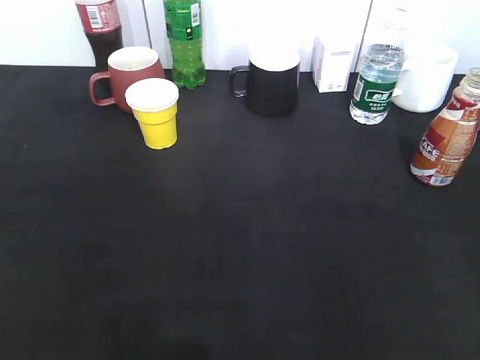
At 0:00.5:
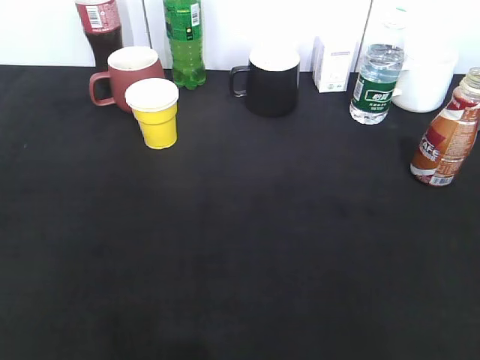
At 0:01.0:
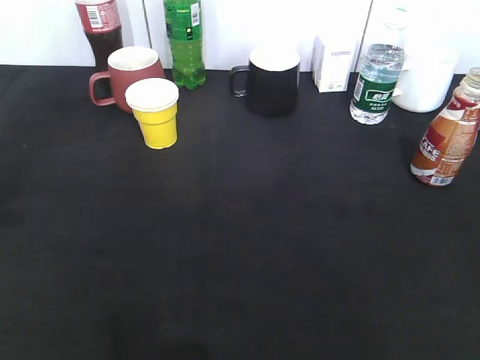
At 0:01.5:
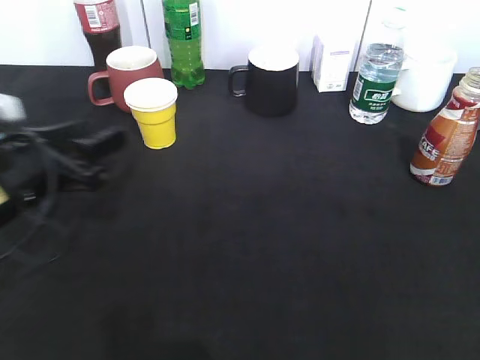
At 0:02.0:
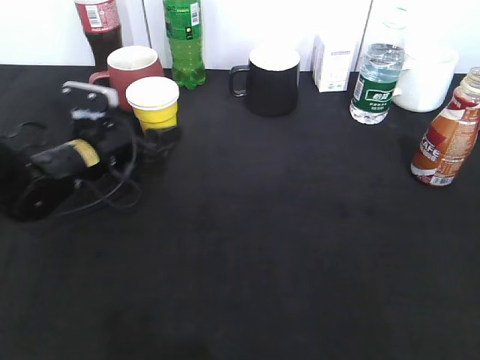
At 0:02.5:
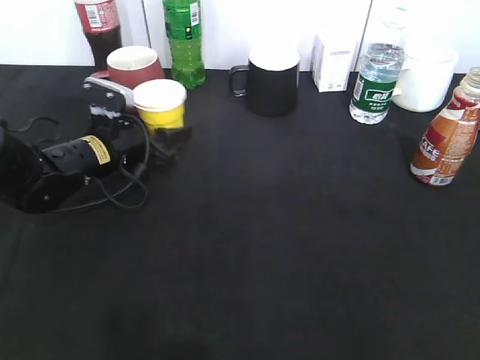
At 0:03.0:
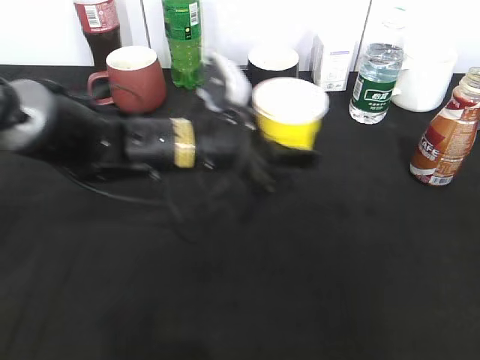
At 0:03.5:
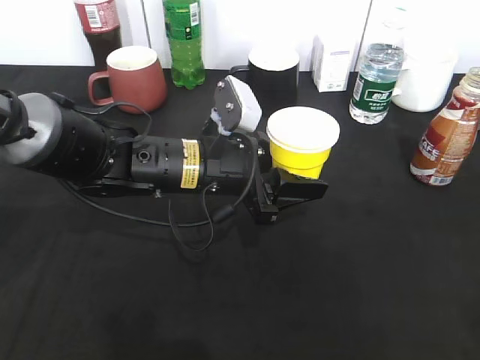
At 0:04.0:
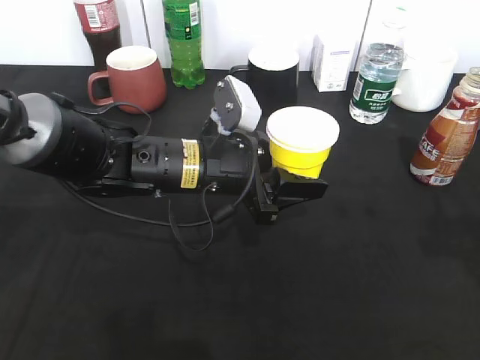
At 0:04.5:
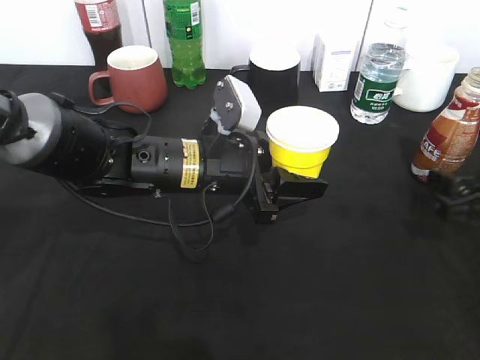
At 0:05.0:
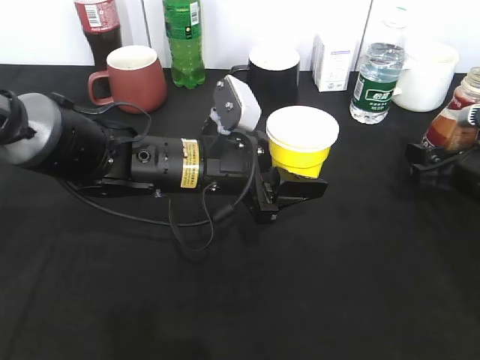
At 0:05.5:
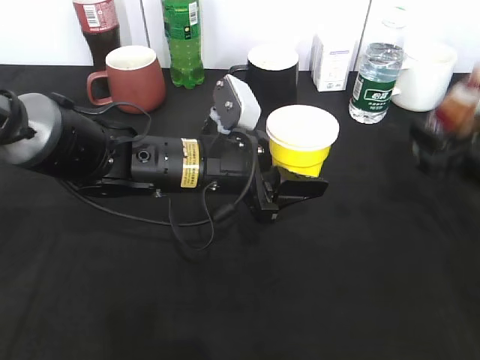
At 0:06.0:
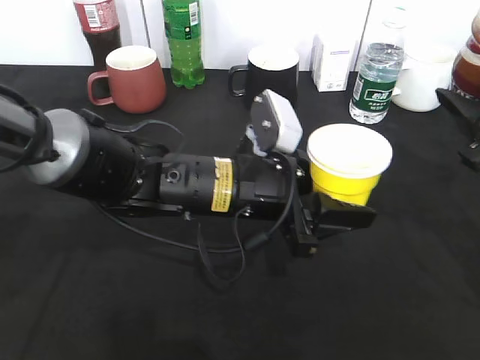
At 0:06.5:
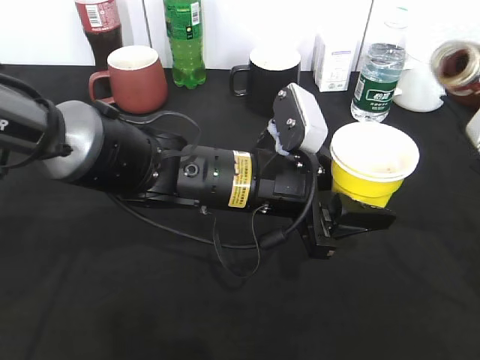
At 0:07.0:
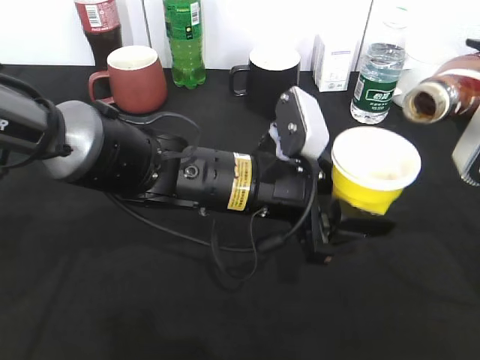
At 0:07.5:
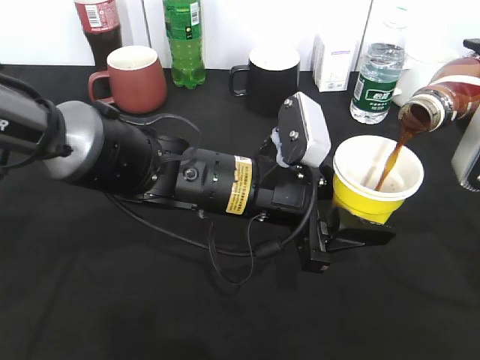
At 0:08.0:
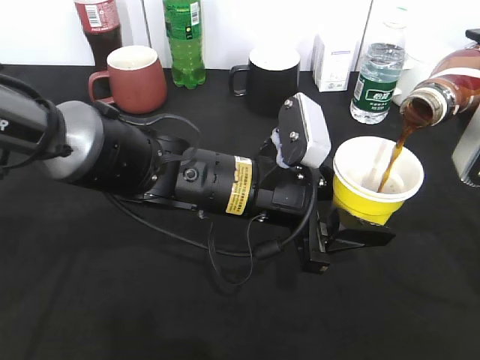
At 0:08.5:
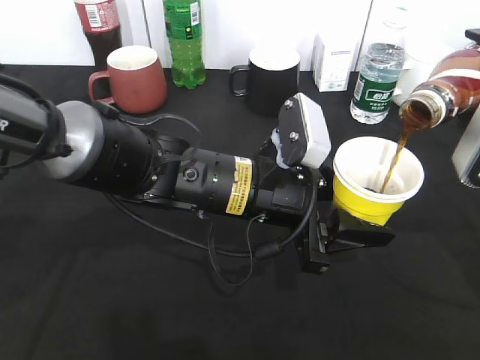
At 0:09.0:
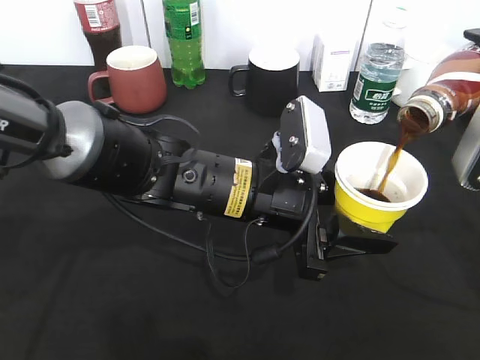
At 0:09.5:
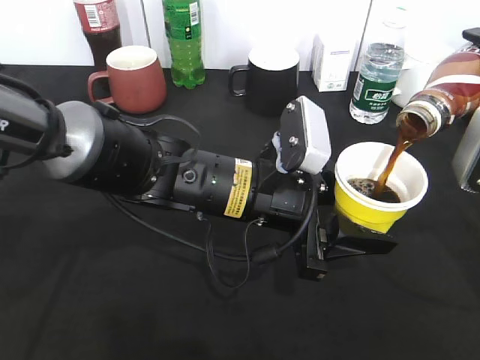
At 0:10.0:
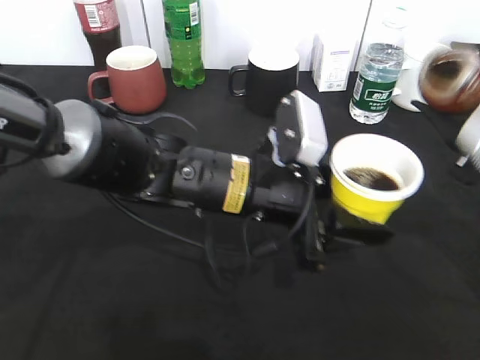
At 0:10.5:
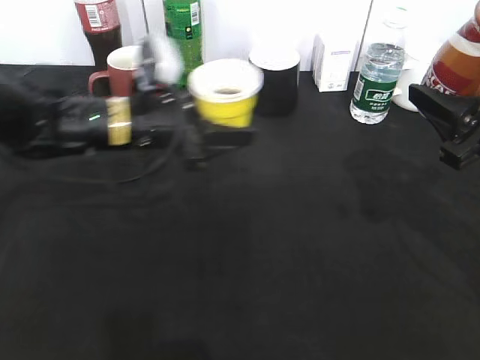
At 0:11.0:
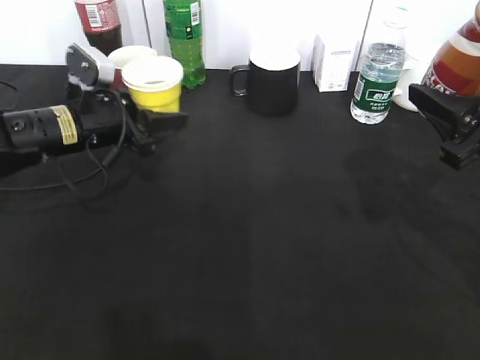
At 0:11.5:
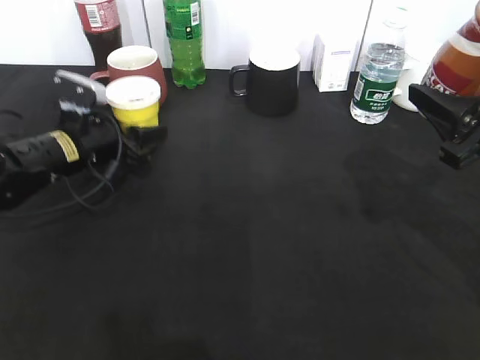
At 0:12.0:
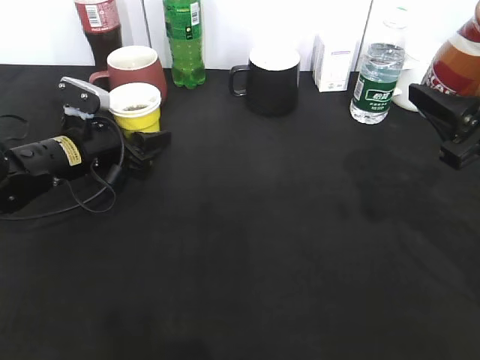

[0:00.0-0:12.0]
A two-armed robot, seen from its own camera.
Step, 0:01.5 to 0:02.0: Grasp the yellow paper cup with left gripper.
Step, 0:02.5 to 0:04.0: Lift the yellow paper cup with left gripper.
Step, 0:04.5 to 0:05.0: Grasp the bottle with coffee with right gripper.
Step, 0:05.5 to 0:09.5: Pour the coffee from bottle to cup with right gripper.
0:00.0 to 0:02.0: The left gripper moves forward and downward, roughly 40 cm, and opens its fingers.
0:02.0 to 0:04.0: The right gripper goes approximately 15 cm forward, and closes up. The left gripper goes approximately 15 cm to the right and backward, and closes its fingers.
0:04.0 to 0:06.0: The right gripper moves forward, some 10 cm, and opens, then closes again. The left gripper ends up roughly 5 cm from where it was.
0:10.0 to 0:12.0: The left gripper heads to the left and forward, covering about 25 cm.

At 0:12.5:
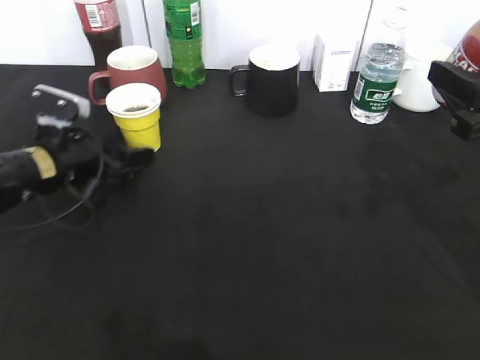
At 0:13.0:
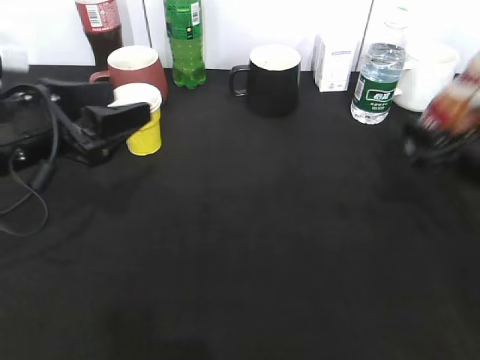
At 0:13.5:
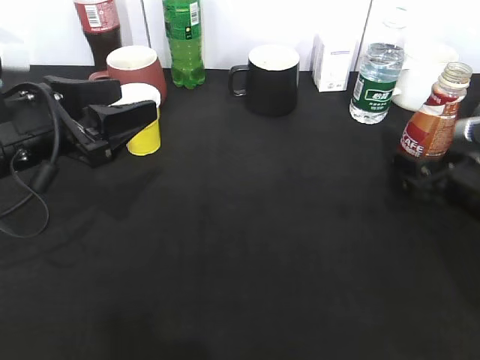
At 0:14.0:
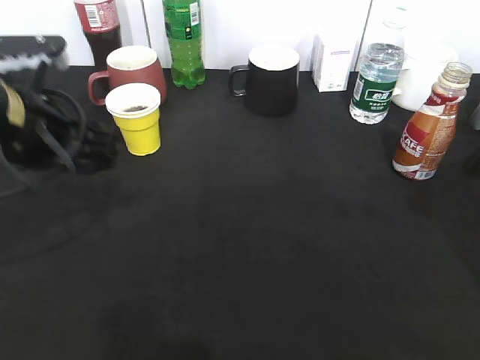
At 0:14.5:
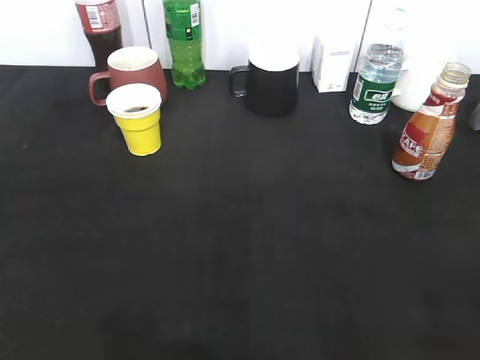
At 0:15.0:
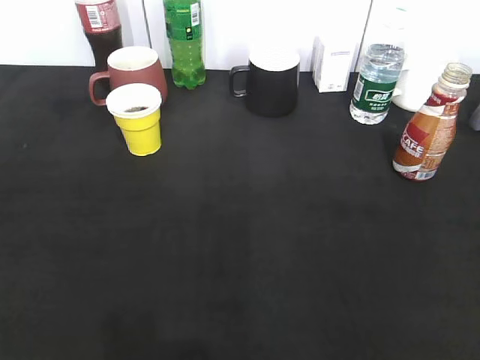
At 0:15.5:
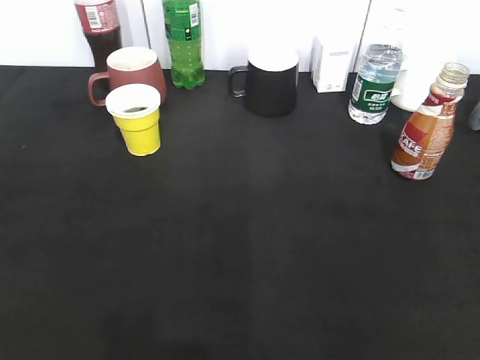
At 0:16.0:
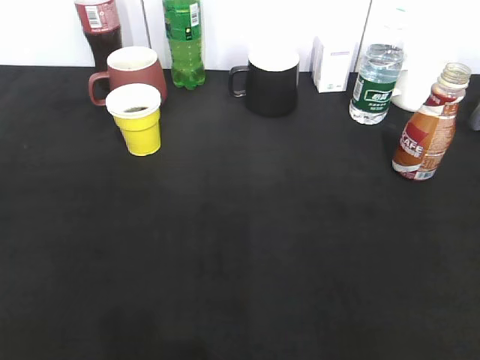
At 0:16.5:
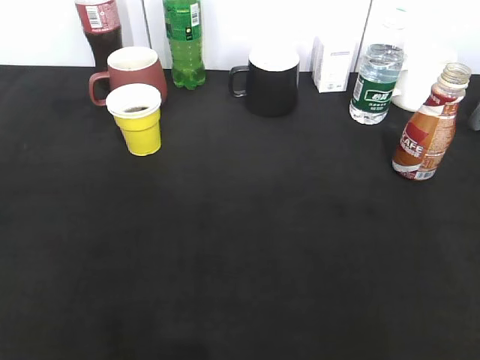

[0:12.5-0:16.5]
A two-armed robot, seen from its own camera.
Step, 0:12.5 to 0:13.5: Place the coffee bottle on the table with right gripper.
0:12.5 to 0:14.5: The left gripper shifts about 35 cm backward and upward, and closes. Meanwhile the right gripper heads backward and upward, covering some 20 cm, and opens its fingers.

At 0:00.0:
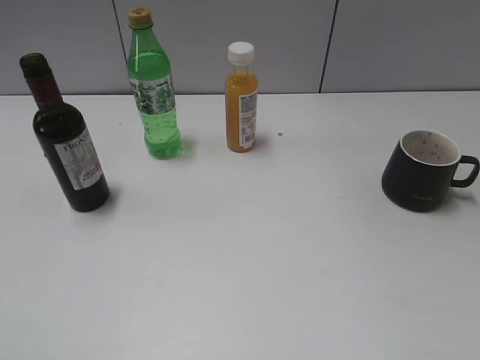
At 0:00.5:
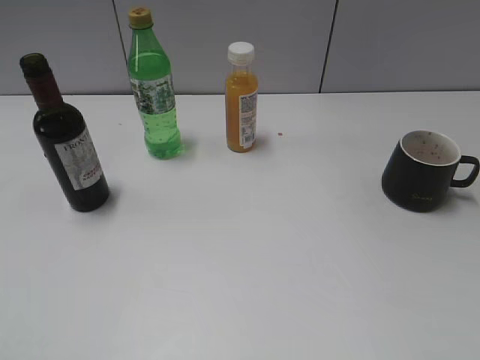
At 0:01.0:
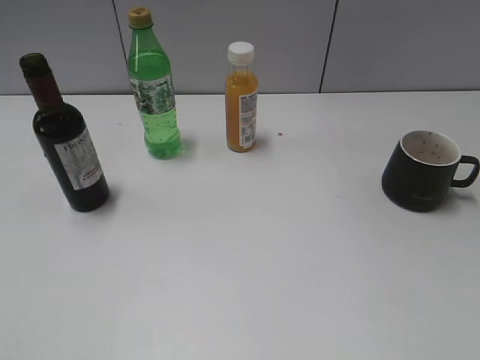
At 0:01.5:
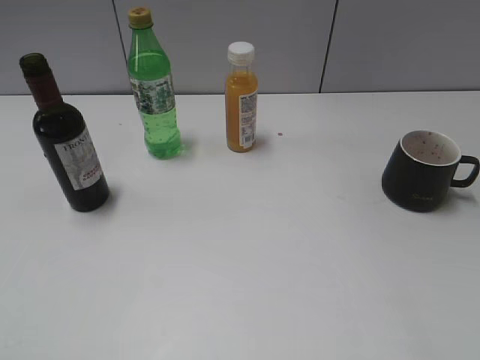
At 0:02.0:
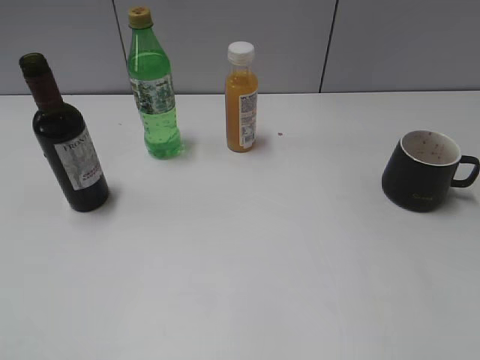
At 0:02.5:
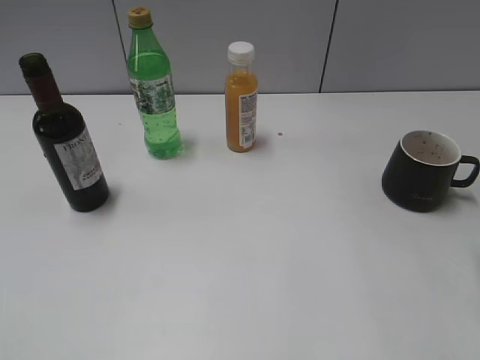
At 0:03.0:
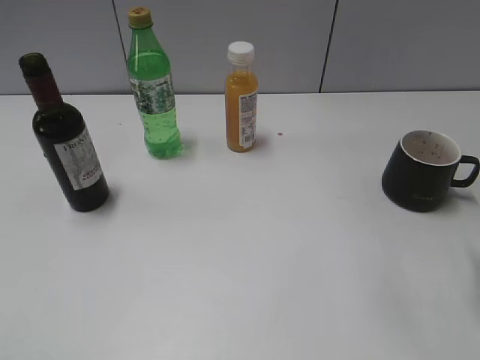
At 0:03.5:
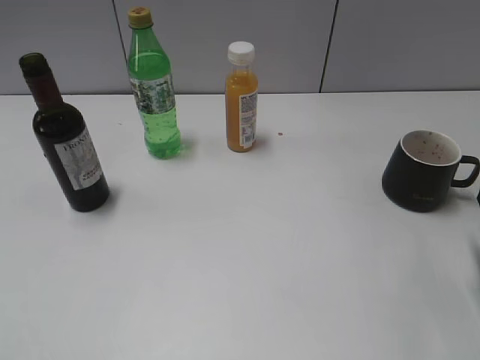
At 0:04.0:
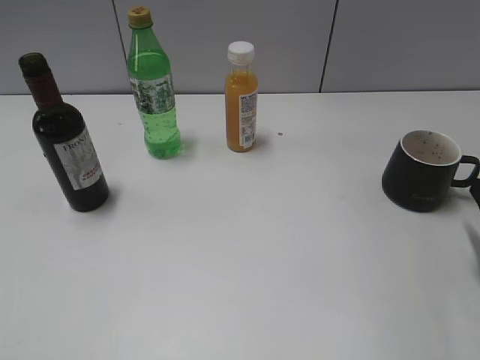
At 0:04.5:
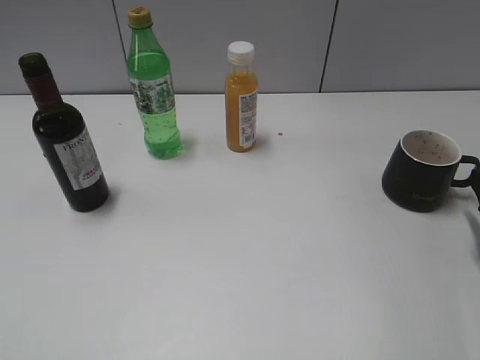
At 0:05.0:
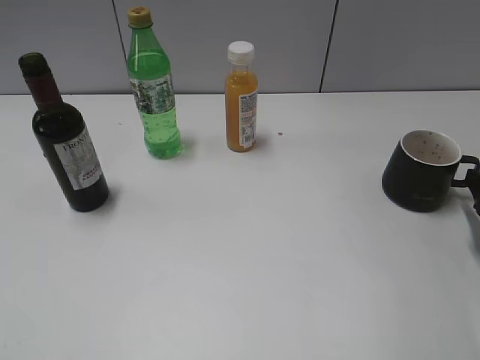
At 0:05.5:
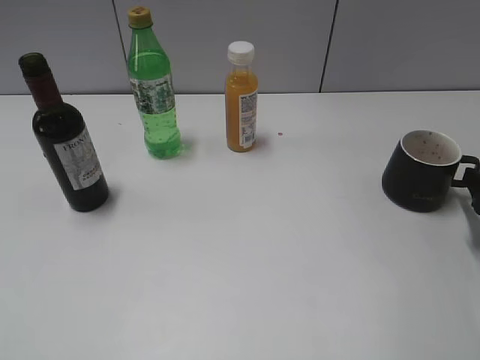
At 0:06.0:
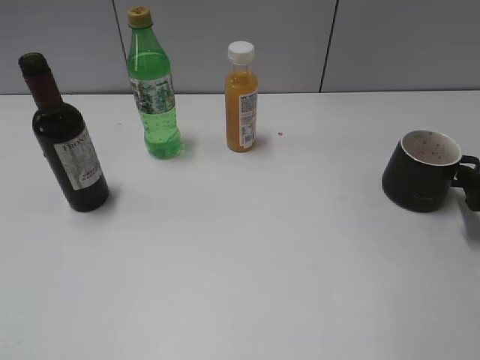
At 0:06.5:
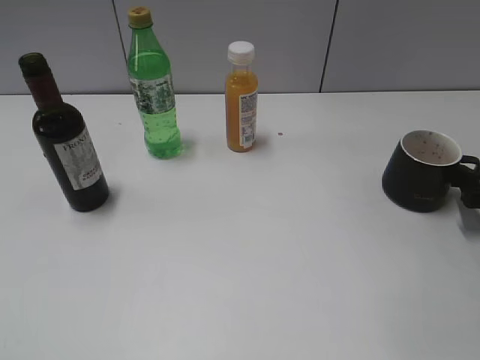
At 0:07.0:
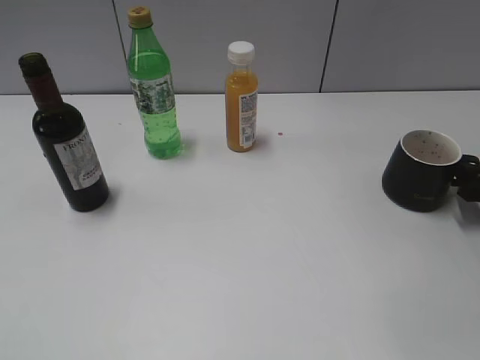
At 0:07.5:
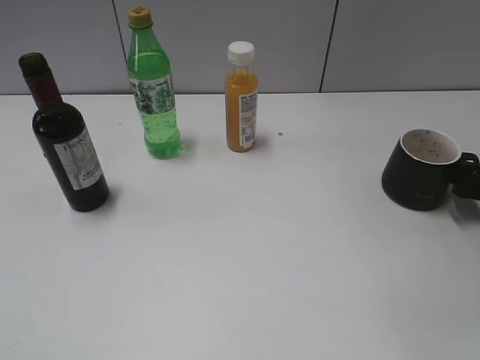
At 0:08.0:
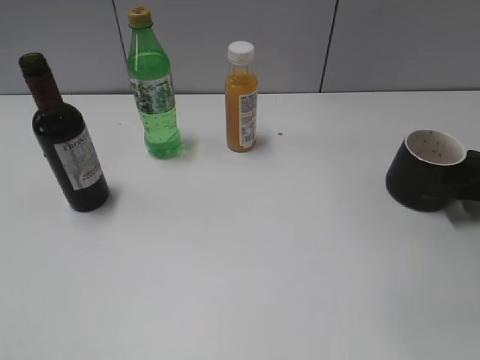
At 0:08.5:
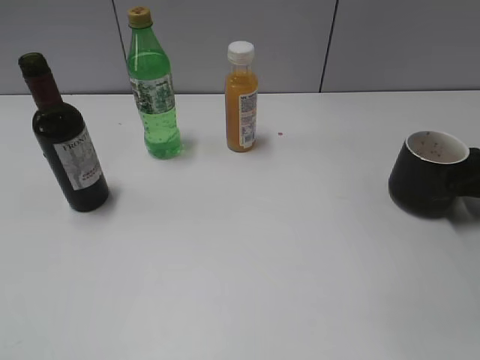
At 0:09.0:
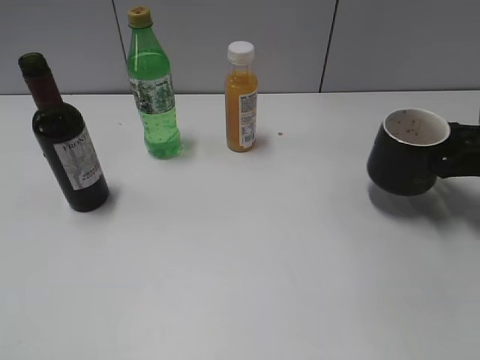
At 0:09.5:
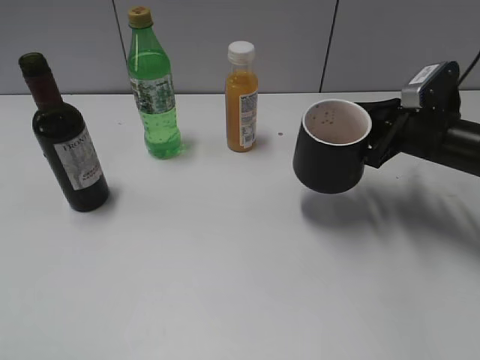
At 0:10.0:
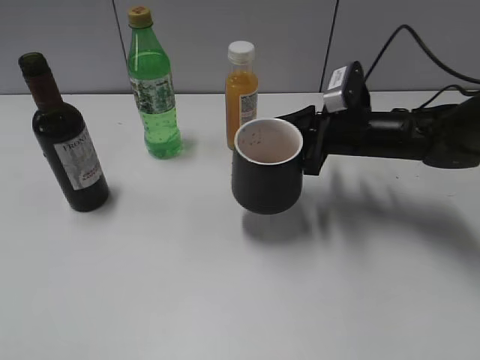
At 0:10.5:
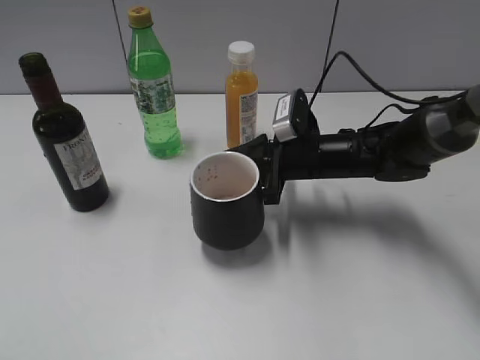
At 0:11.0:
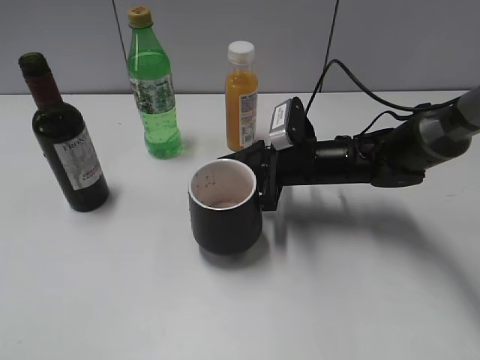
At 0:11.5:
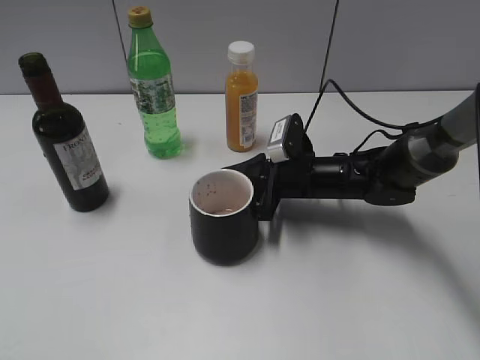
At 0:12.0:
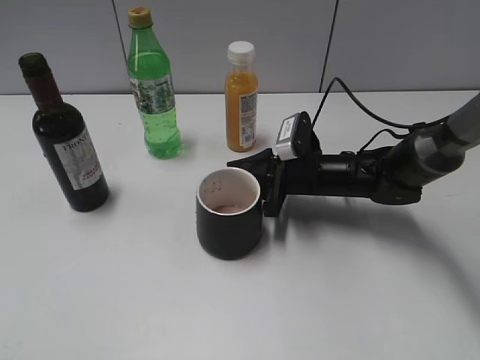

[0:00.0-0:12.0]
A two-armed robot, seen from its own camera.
0:04.0 to 0:06.0: The right gripper travels forward by some 5 cm.
0:06.0 to 0:08.0: The right gripper closes.
0:08.0 to 0:10.0: The right gripper travels to the left by roughly 20 cm, and closes up.
0:10.0 to 0:12.0: The right gripper travels downward by approximately 5 cm.
